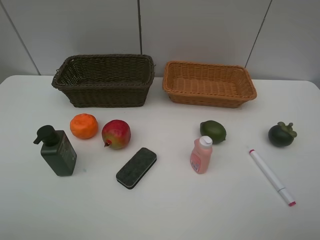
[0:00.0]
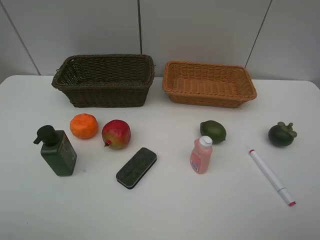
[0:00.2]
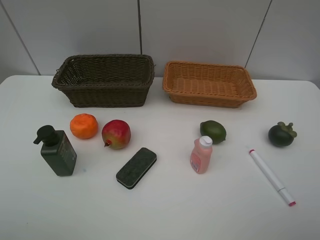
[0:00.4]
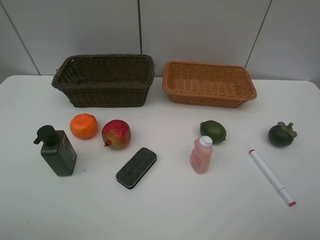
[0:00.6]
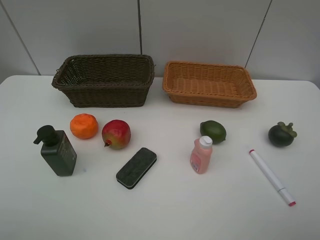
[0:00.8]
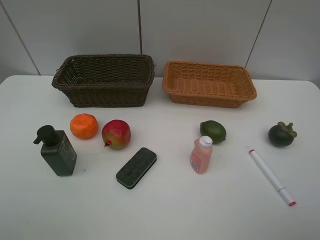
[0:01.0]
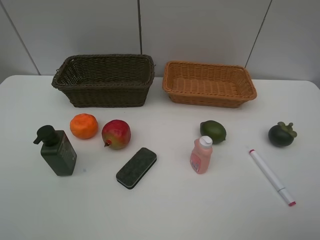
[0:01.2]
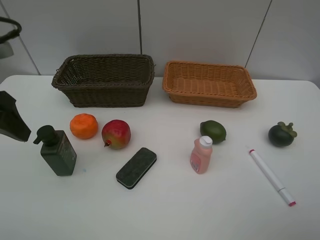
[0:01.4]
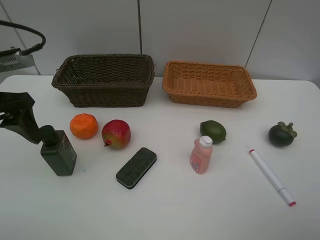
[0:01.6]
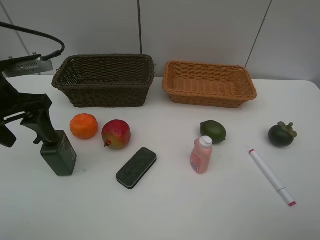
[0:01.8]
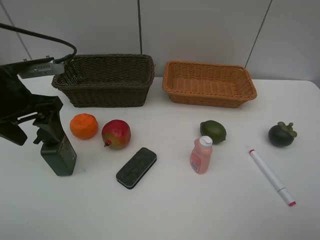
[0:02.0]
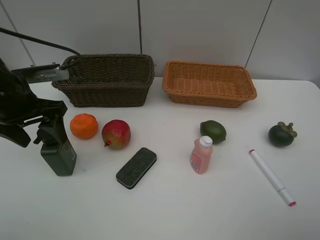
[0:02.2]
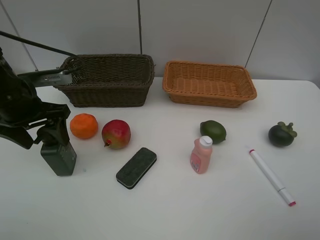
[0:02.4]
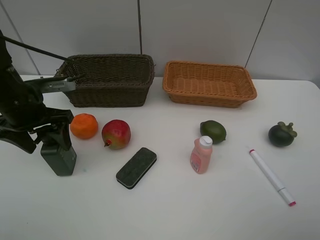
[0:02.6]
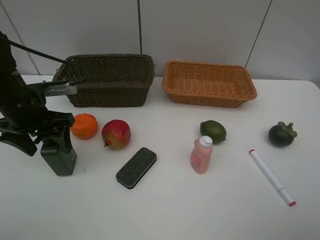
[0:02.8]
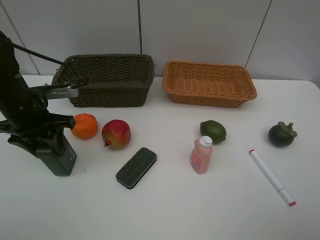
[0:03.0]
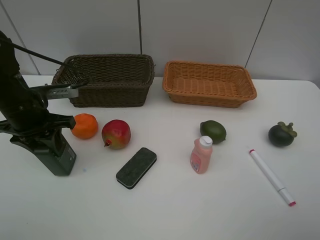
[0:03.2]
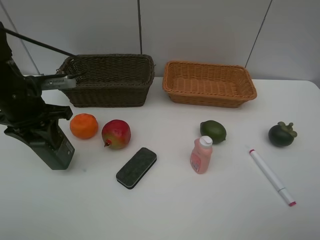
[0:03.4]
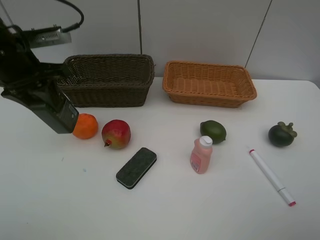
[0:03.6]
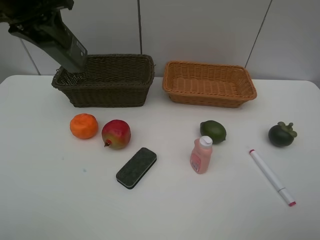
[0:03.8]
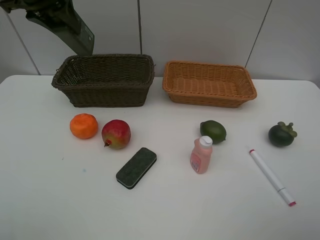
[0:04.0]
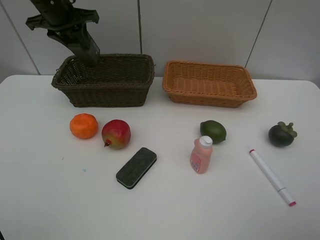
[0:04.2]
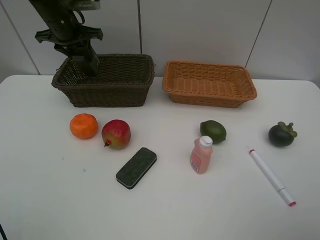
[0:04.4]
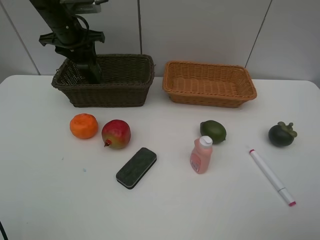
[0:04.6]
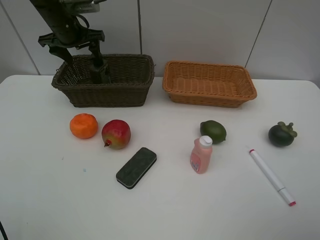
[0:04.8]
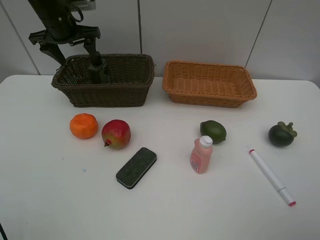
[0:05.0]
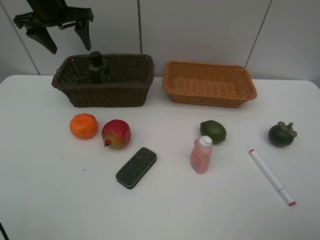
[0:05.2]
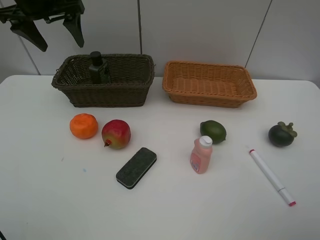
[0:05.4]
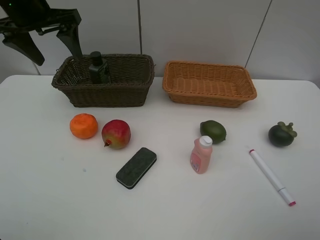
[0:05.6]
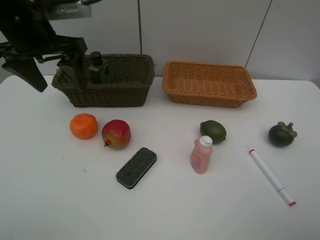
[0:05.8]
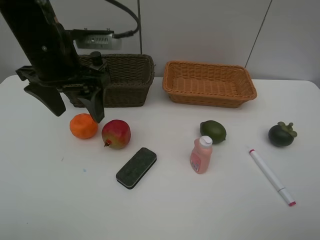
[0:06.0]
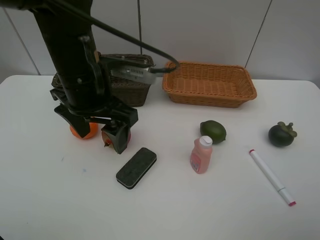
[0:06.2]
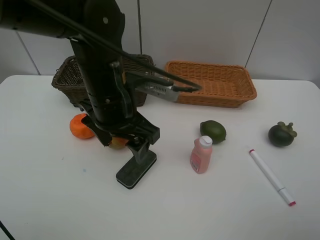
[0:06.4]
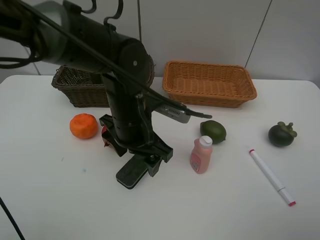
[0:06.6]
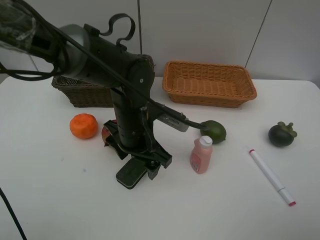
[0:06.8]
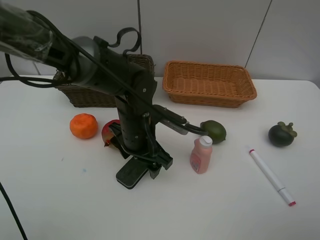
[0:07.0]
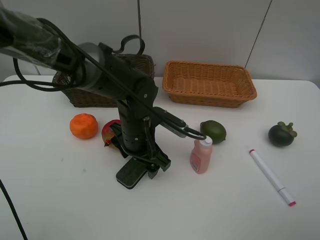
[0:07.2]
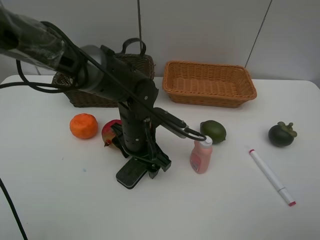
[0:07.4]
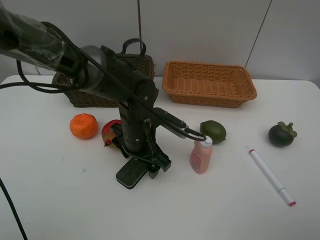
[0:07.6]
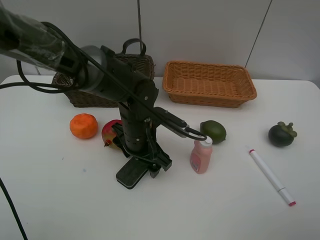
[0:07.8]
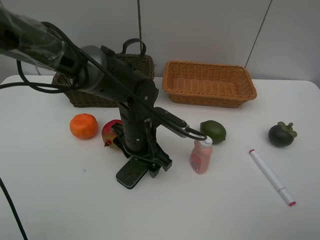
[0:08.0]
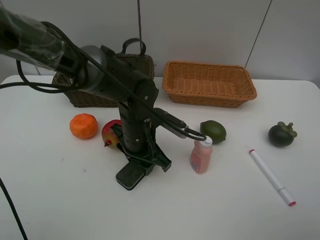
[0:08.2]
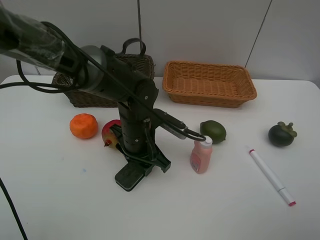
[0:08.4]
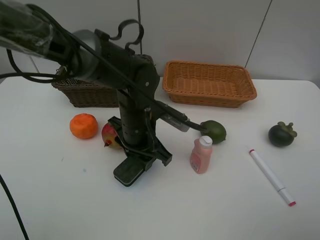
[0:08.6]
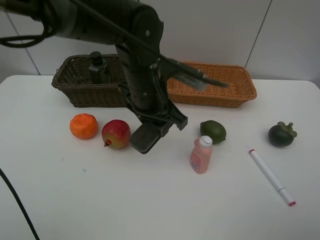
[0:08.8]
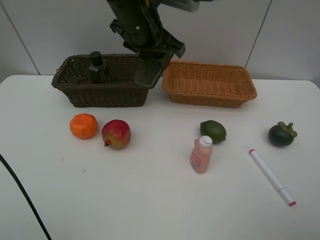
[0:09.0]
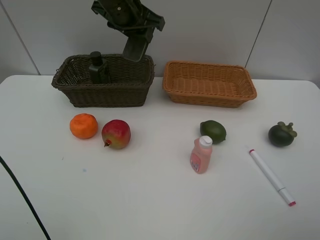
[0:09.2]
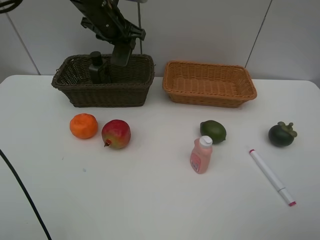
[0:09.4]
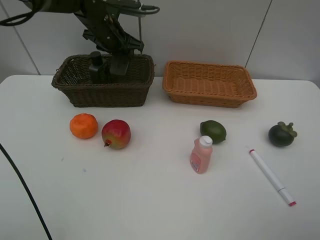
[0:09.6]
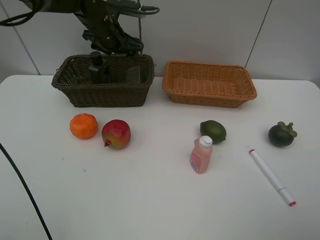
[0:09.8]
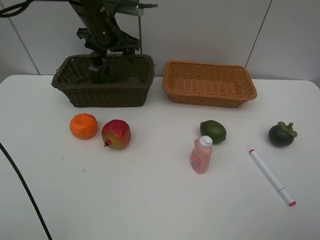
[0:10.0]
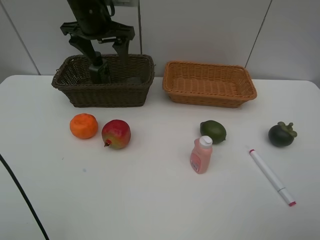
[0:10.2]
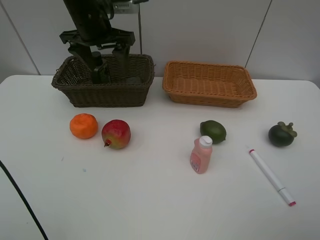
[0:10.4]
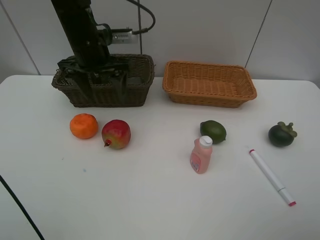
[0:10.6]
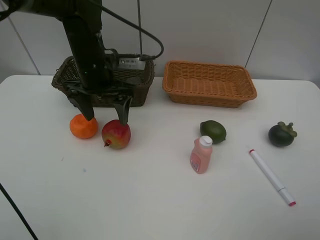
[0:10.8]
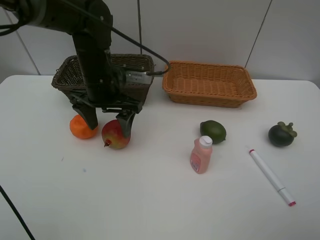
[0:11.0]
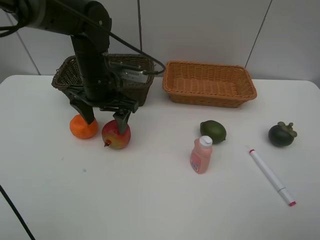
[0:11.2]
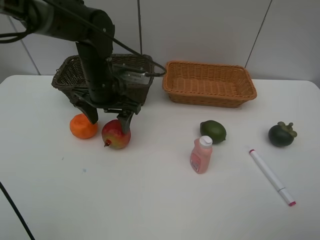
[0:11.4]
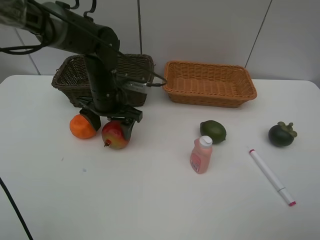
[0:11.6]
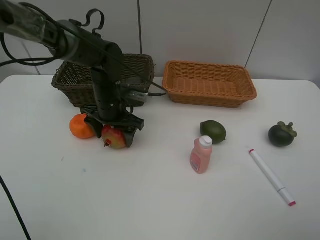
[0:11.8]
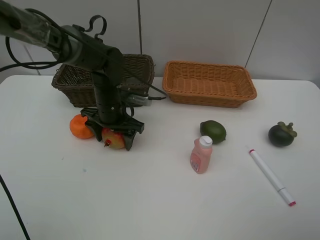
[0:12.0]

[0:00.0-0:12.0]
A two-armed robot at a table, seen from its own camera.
Task of the whole recording: Place multiple objects separately in different baskets.
Step, 0:00.0 to 0:03.4: Pick up the hard facial cleanser with left gripper.
Step, 0:03.6 to 0:05.0: Place the hard facial cleanser in the dark basket with left gripper.
Step, 0:05.2 to 0:08.6: Pick up blackboard eraser with left gripper.
Step, 0:08.8 to 0:10.0: Place the blackboard eraser in the dark basket with left gripper.
0:00.0 to 0:01.6: The left gripper travels forward by roughly 25 cm.
0:01.6 to 0:03.0: The left gripper moves downward and forward, roughly 10 cm, and closes up.
0:03.0 to 0:04.4: The left gripper goes roughly 20 cm forward.
0:04.4 to 0:06.0: The left gripper travels backward and to the right by some 20 cm, and opens up.
0:06.0 to 0:07.6: The left gripper heads downward and to the right, covering roughly 20 cm.
0:07.6 to 0:09.0: The left gripper moves upward and forward, roughly 20 cm, and closes.
0:09.0 to 0:10.4: The left gripper is displaced to the left by approximately 10 cm, moves roughly 10 cm forward and comes back, and opens up.
0:10.4 to 0:12.0: The left gripper travels downward by approximately 15 cm.

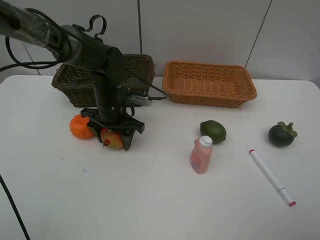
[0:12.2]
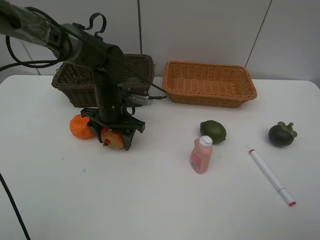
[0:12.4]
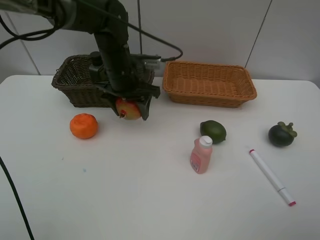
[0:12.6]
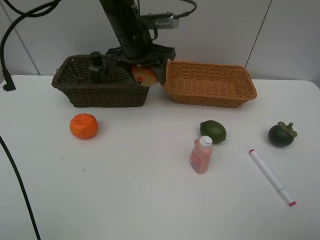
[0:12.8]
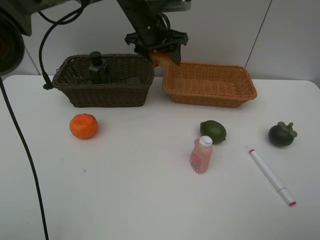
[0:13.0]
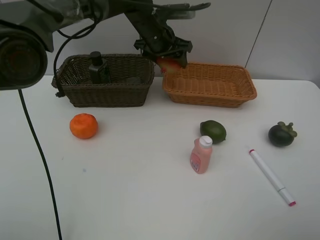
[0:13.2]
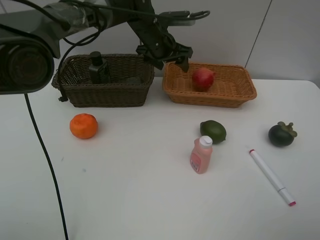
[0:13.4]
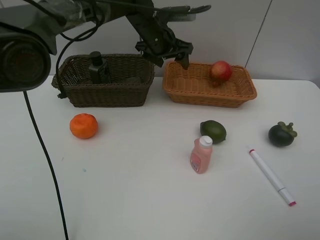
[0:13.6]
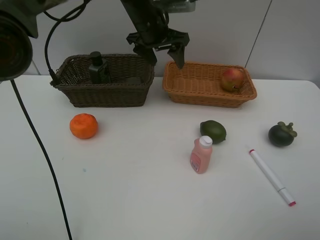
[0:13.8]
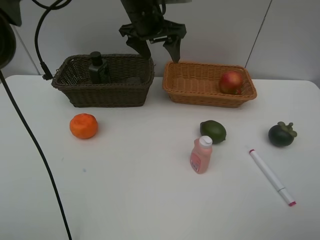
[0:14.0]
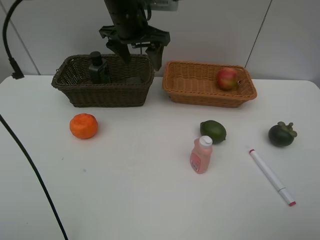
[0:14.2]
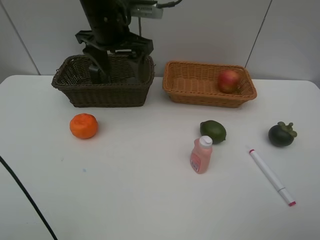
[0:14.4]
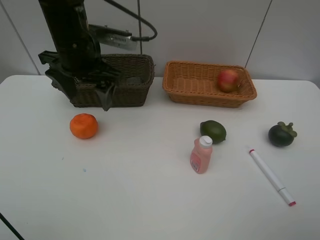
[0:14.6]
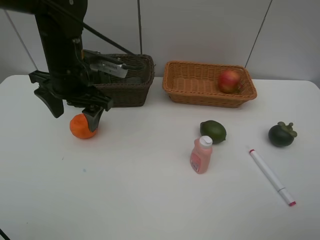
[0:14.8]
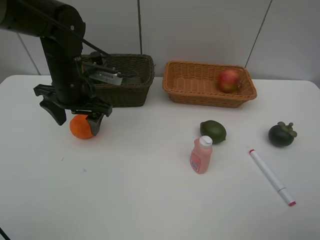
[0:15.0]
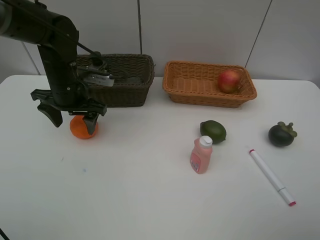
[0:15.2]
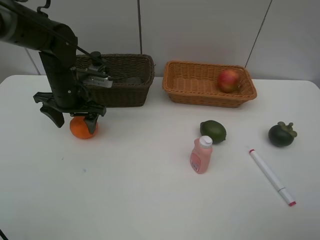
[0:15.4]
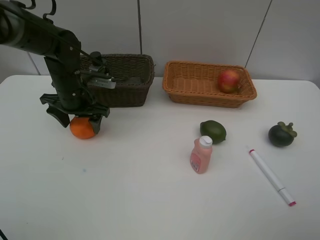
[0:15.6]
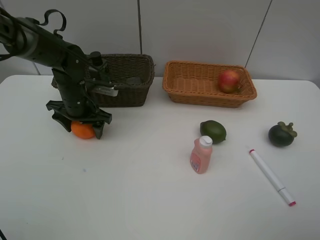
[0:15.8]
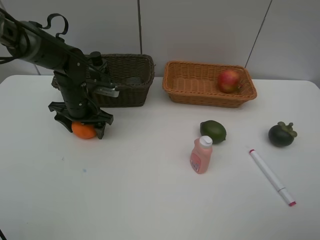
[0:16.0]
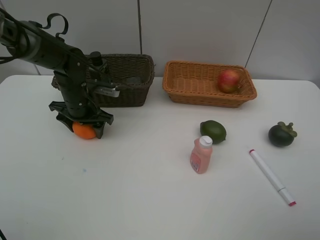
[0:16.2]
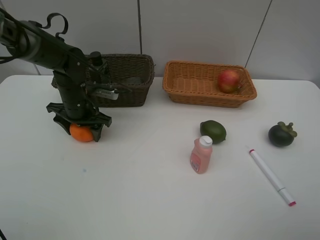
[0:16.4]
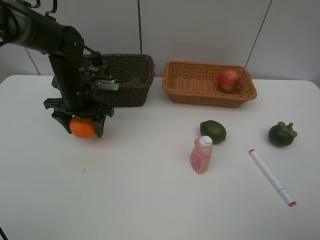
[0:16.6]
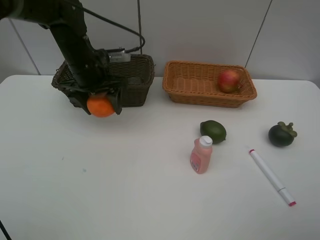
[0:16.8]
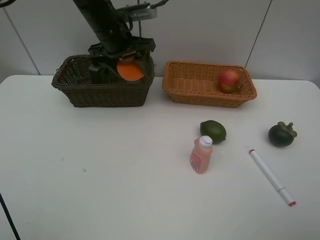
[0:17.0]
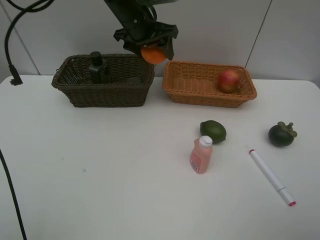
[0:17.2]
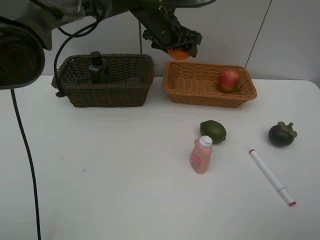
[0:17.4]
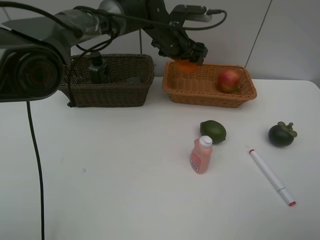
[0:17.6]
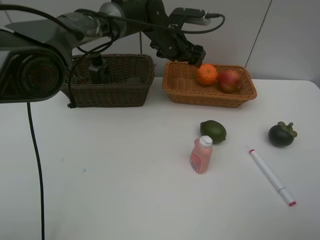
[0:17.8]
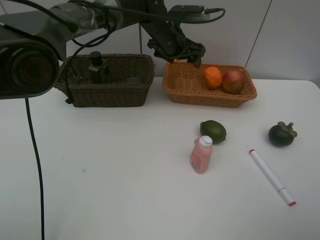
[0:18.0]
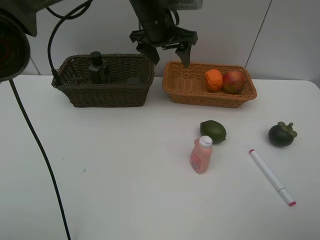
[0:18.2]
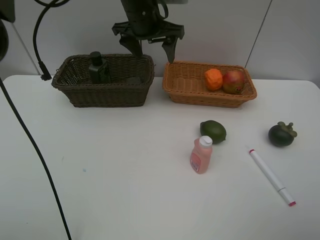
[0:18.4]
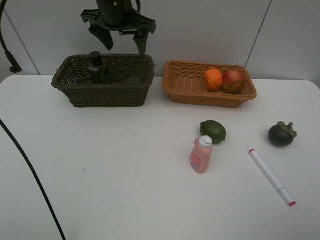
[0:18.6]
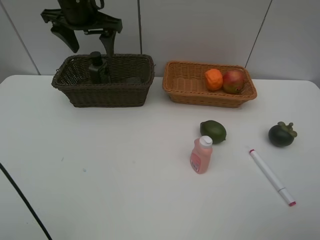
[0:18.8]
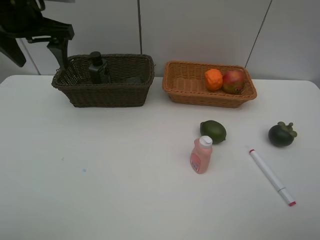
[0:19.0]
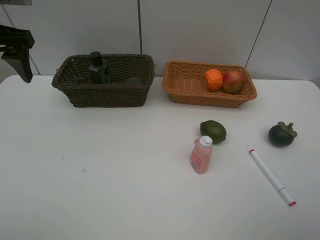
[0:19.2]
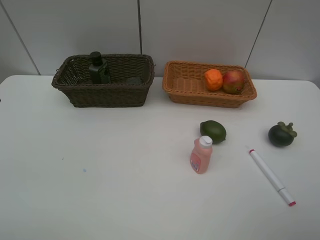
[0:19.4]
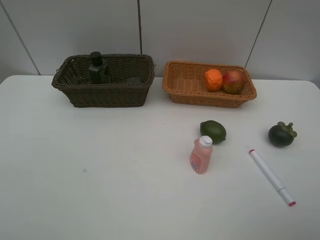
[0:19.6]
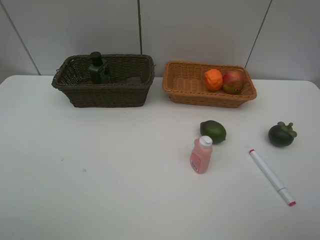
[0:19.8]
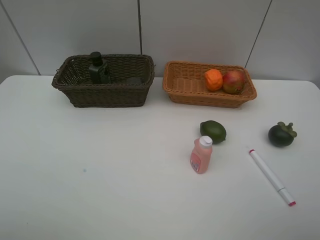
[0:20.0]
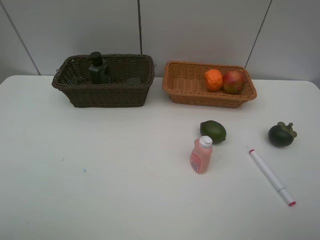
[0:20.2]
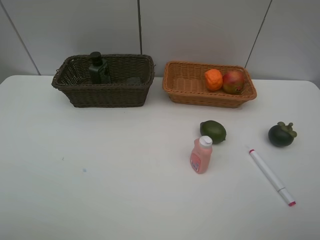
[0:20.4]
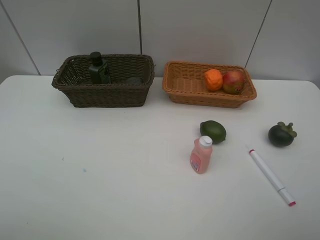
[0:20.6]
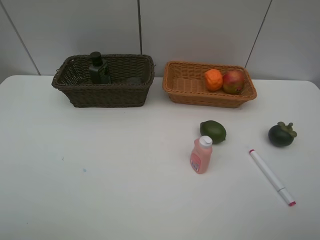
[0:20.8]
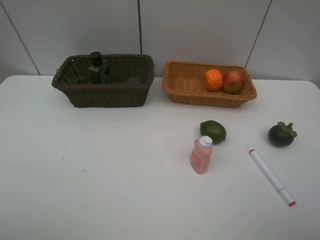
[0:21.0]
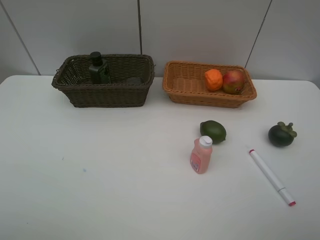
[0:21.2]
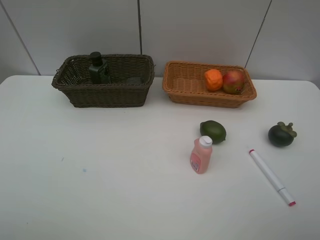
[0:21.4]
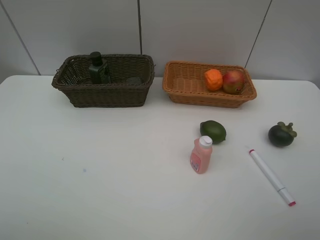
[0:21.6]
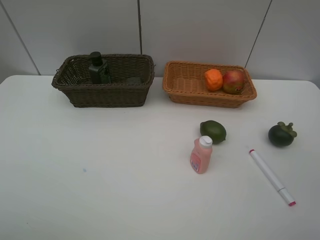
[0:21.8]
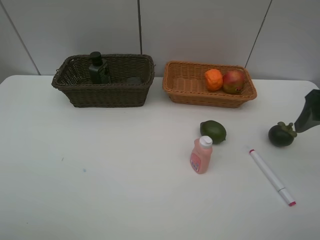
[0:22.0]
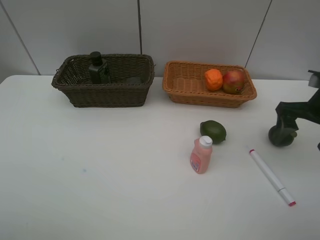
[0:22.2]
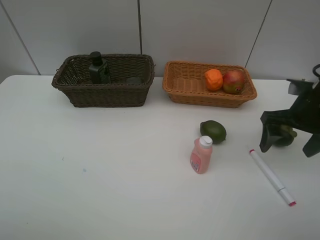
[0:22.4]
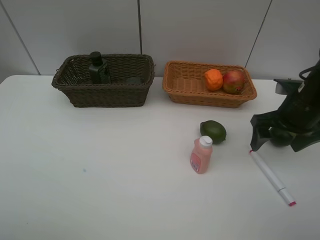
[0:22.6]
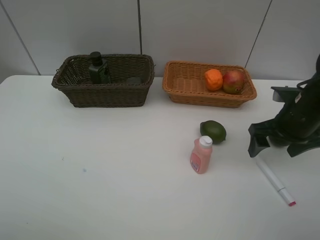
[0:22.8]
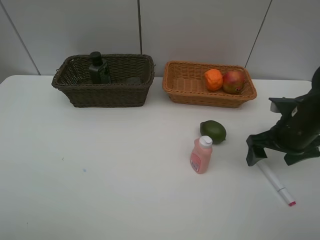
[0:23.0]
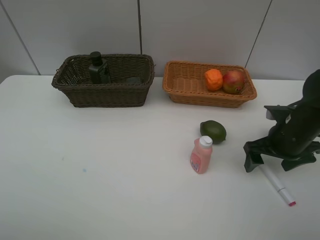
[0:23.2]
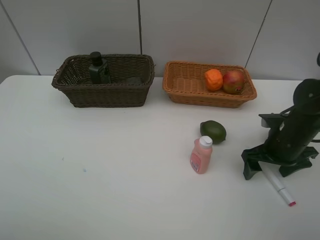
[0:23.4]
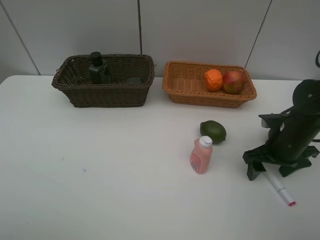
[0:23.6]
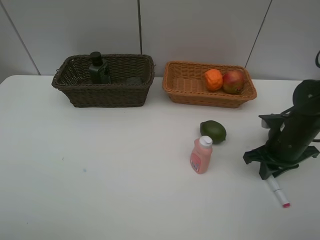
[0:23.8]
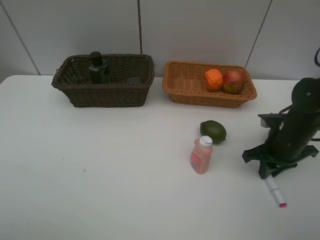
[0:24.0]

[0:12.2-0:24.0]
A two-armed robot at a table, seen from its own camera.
Task of the whole recording: Place multiple objects separately in different baskets.
Step, 0:12.6 to 0:13.6: Place the pomegranate in the light basket with left gripper.
Step, 0:13.8 to 0:16.6: Pick up the orange with left gripper.
Step, 0:16.8 to 0:17.8: Place the orange in the light basket with left gripper.
0:12.2 to 0:13.6: The left gripper heads forward, upward and to the right, covering roughly 20 cm.
0:13.6 to 0:15.2: The left gripper travels to the left and backward by about 20 cm.
0:15.2 to 0:16.6: The grippers move only a little.
0:16.6 to 0:18.2: The left gripper moves to the right, upward and forward, some 20 cm.
0:18.2 to 0:19.6: The left gripper shifts roughly 40 cm backward and to the left.
0:21.0 to 0:22.6: The right gripper travels forward by about 25 cm.
0:22.6 to 0:24.0: The right gripper shifts some 10 cm downward, and closes up.
